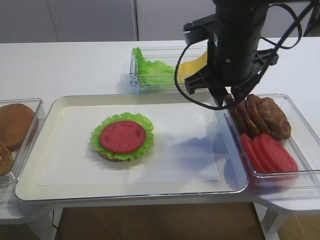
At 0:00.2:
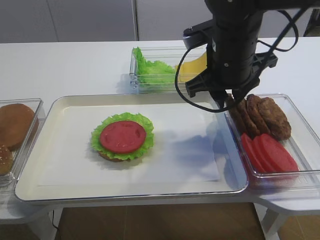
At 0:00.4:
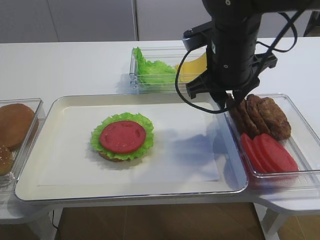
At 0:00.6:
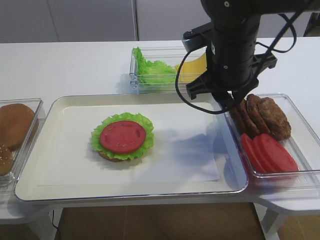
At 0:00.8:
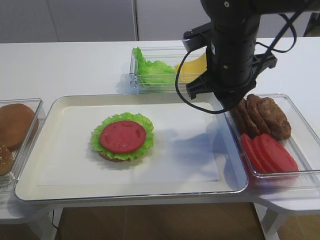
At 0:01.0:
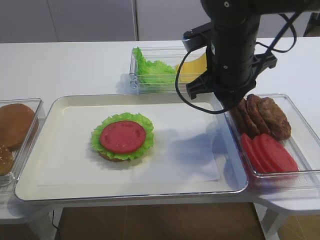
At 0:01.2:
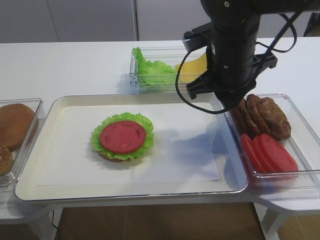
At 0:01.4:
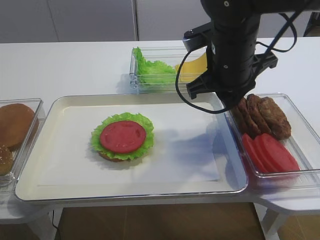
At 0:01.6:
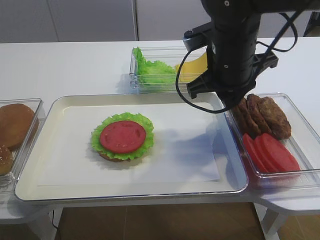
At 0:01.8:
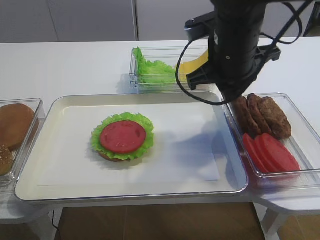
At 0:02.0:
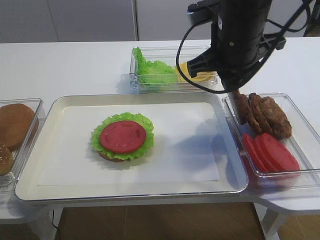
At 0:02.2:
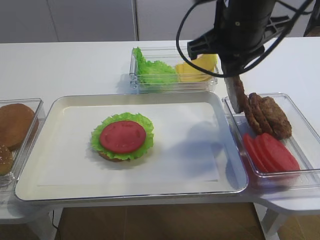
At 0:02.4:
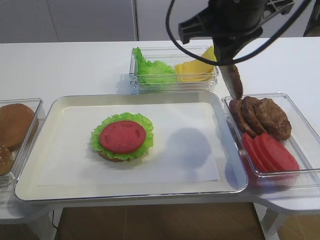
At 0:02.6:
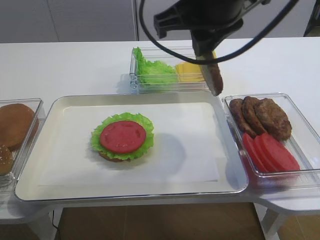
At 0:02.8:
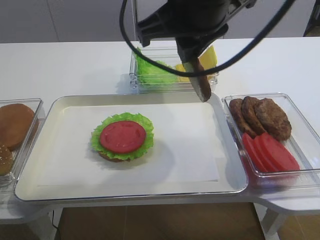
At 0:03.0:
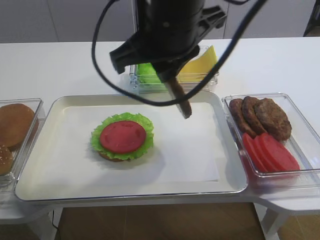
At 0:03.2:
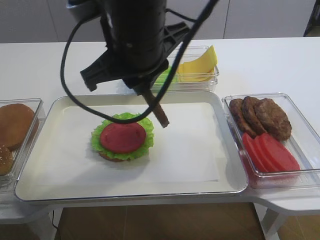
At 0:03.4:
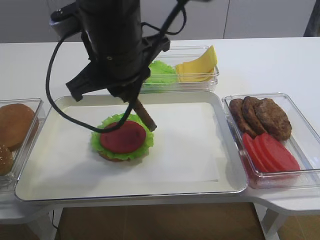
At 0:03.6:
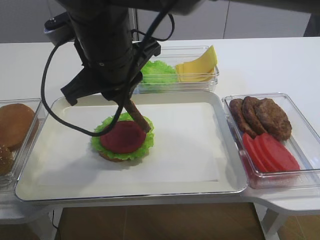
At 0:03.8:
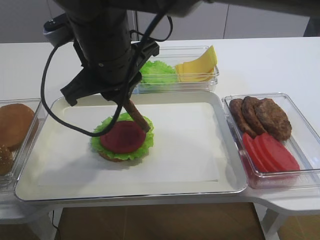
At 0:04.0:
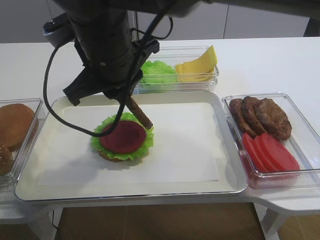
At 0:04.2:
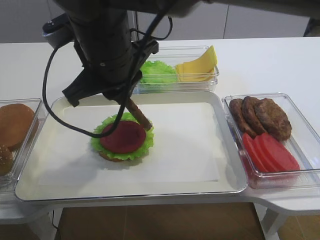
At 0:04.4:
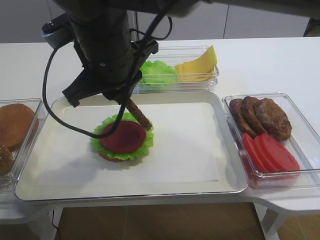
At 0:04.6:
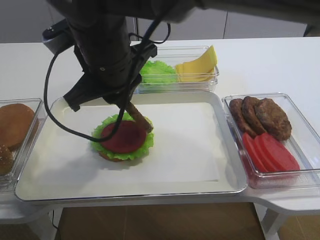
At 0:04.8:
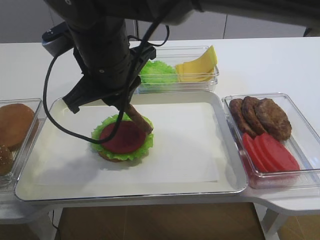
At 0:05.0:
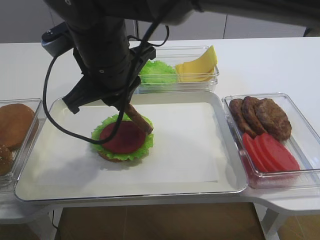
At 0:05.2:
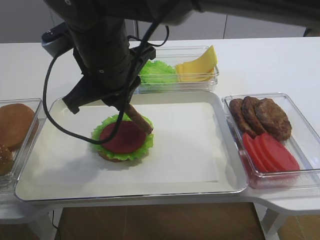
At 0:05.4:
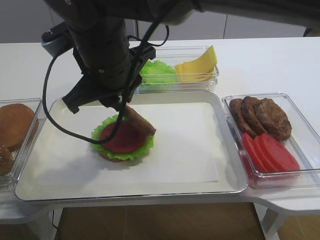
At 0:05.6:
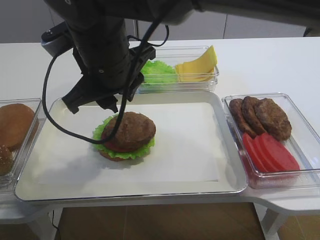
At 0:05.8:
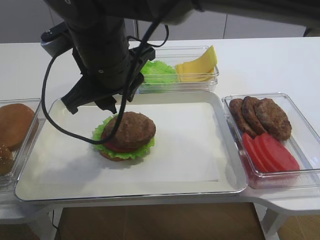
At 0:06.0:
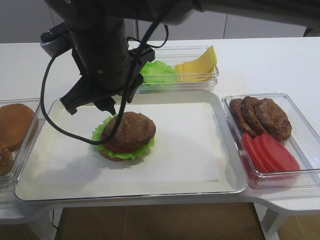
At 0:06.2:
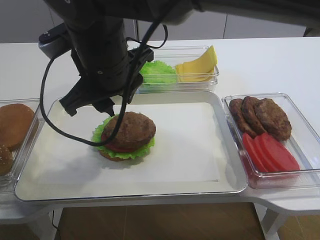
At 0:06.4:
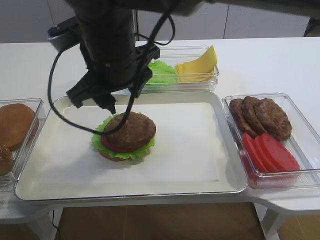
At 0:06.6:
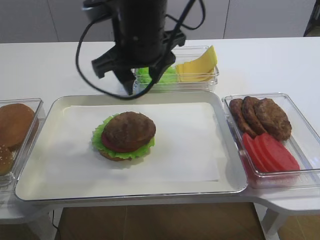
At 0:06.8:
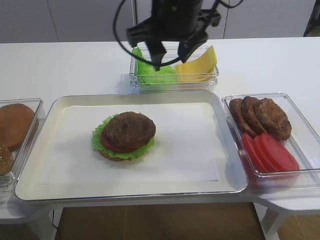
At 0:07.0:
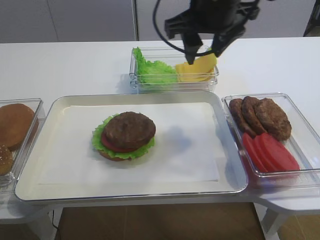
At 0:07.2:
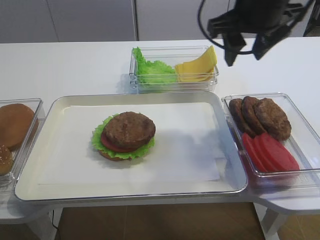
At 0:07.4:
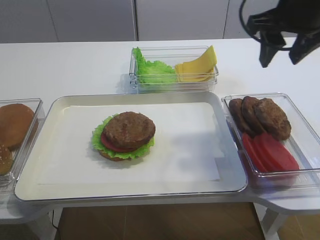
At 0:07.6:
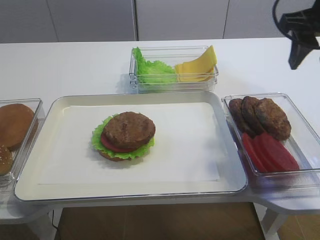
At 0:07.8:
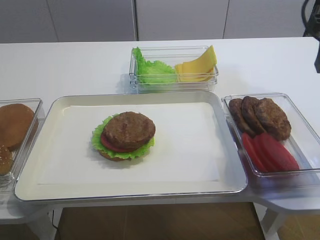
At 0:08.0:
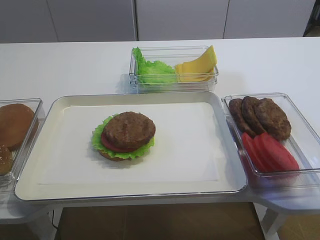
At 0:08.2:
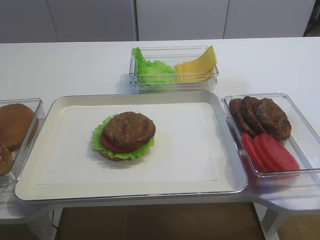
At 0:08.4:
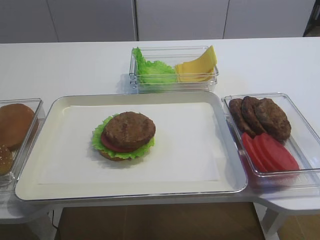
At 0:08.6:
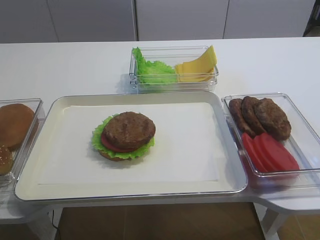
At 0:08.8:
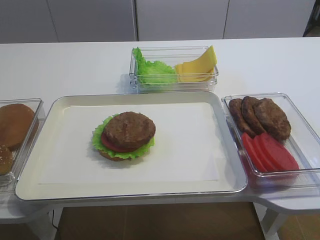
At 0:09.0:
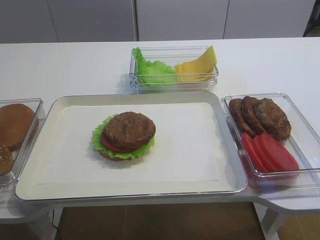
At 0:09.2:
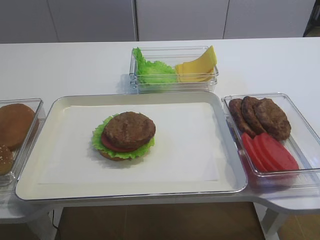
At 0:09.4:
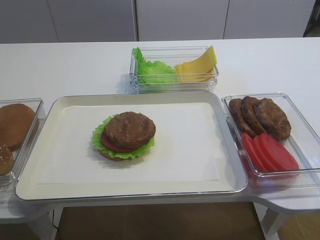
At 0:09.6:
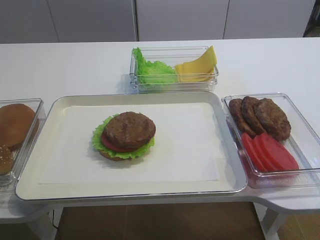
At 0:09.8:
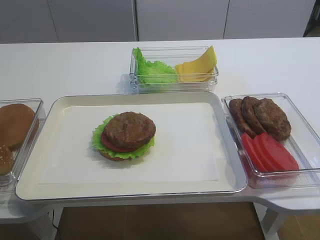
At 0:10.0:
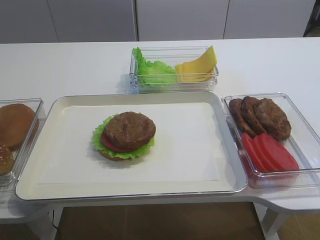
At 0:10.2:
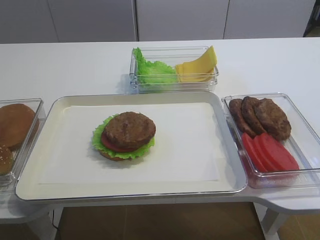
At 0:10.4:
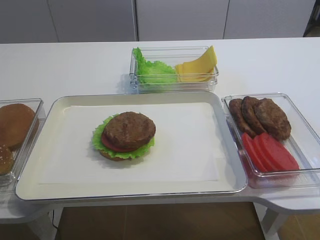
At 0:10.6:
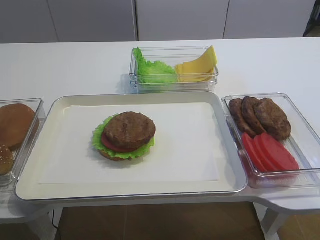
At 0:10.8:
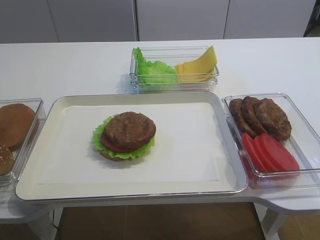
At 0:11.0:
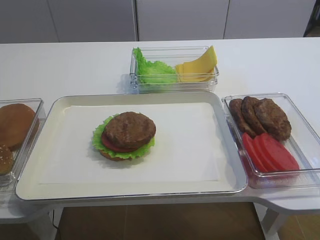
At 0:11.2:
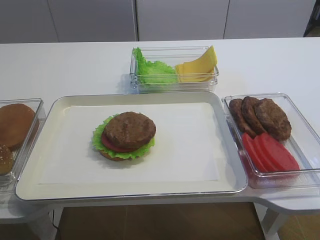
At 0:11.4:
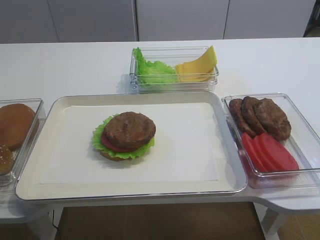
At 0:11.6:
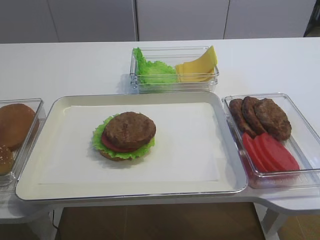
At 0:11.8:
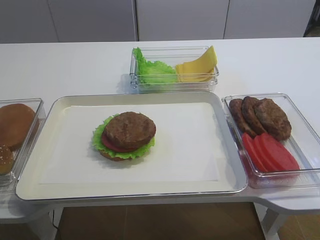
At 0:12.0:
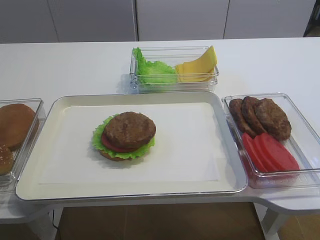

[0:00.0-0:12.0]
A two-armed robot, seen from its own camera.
Step, 0:00.0 to 0:02.0: Pick up the cutlet with the right gripper.
Step, 0:02.2 to 0:05.8: Place the cutlet on the tomato slice with the right gripper.
0:00.0 to 0:01.6: The right gripper closes up.
0:01.6 to 0:03.0: The right gripper travels to the left, upward and backward by some 15 cm.
0:03.0 to 0:04.4: The right gripper moves to the left, roughly 5 cm.
0:04.4 to 0:06.0: The right gripper opens up.
0:06.0 to 0:07.6: The right gripper shifts approximately 30 cm to the right, and opens.
0:07.6 to 0:09.0: The right gripper goes some 30 cm backward.
0:09.0 to 0:10.4: The right gripper changes place by approximately 5 cm.

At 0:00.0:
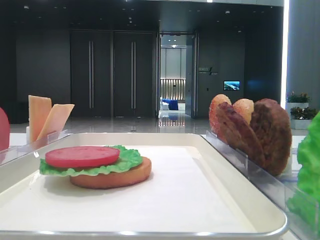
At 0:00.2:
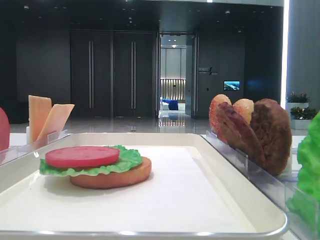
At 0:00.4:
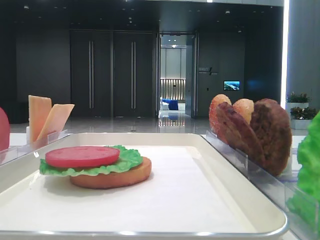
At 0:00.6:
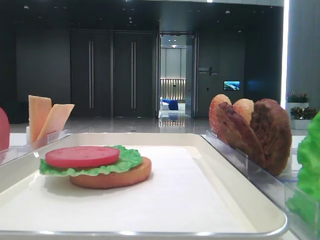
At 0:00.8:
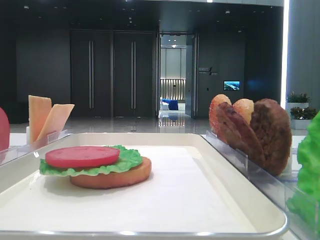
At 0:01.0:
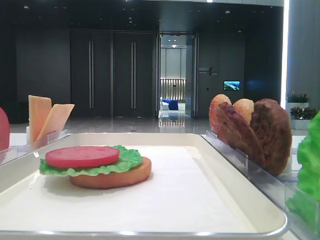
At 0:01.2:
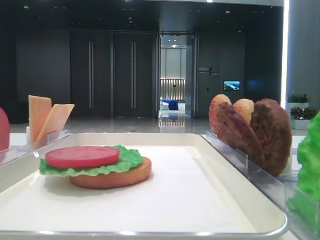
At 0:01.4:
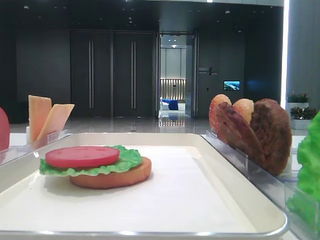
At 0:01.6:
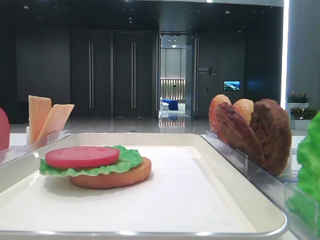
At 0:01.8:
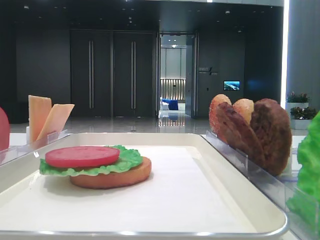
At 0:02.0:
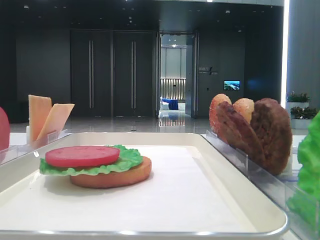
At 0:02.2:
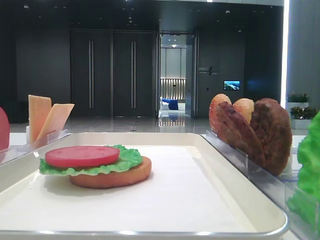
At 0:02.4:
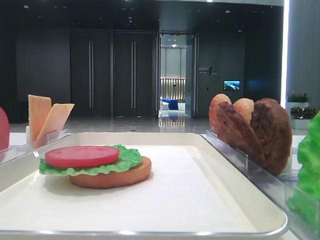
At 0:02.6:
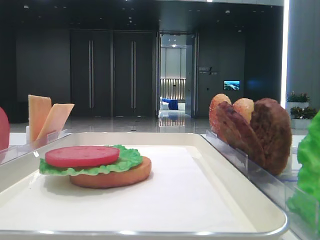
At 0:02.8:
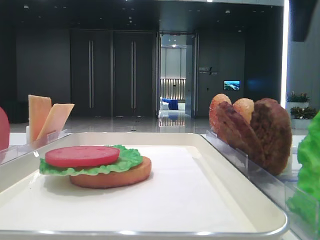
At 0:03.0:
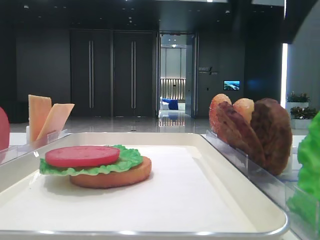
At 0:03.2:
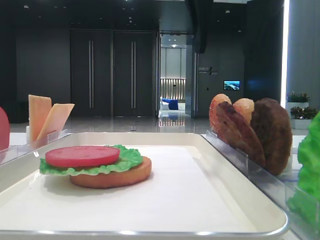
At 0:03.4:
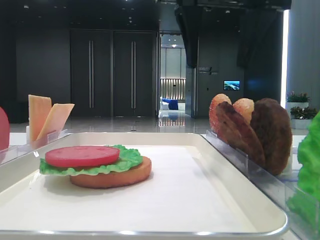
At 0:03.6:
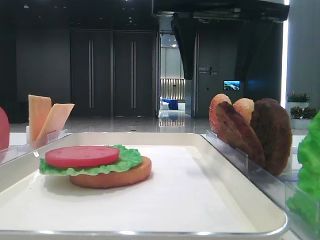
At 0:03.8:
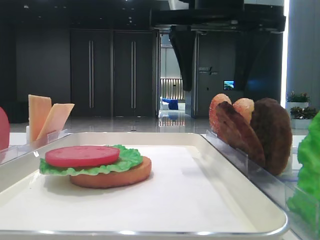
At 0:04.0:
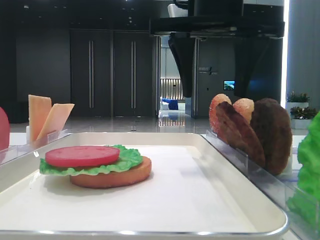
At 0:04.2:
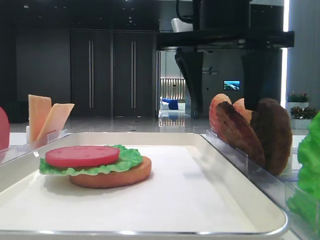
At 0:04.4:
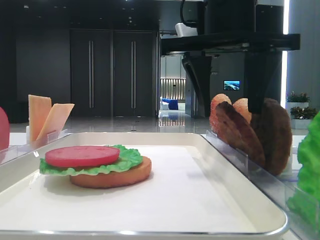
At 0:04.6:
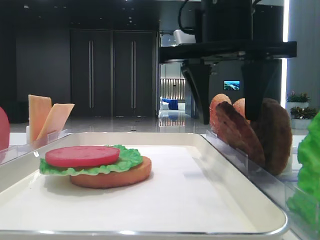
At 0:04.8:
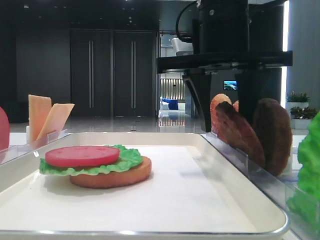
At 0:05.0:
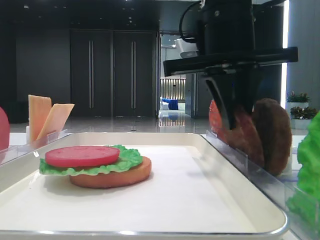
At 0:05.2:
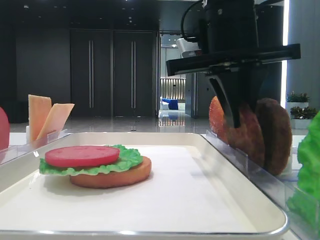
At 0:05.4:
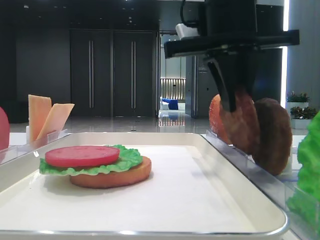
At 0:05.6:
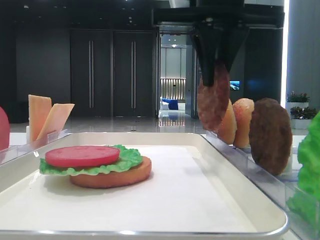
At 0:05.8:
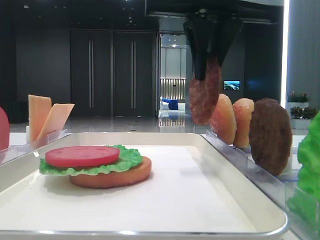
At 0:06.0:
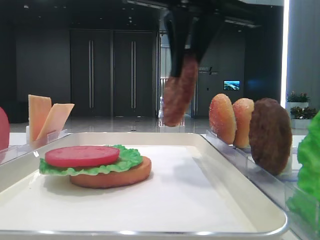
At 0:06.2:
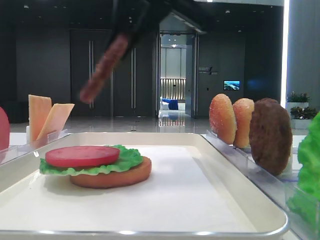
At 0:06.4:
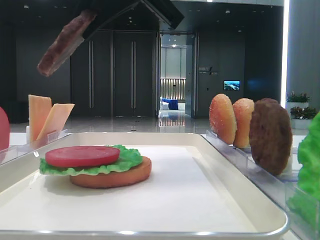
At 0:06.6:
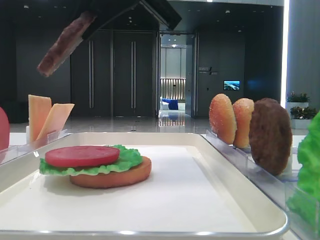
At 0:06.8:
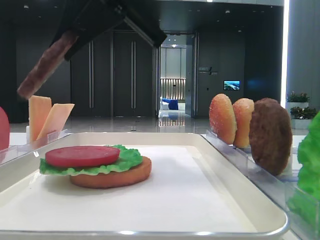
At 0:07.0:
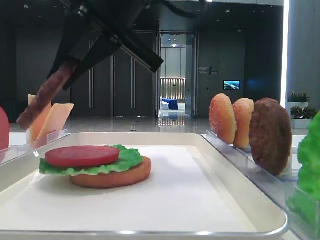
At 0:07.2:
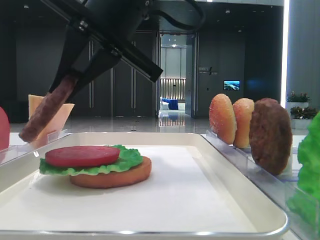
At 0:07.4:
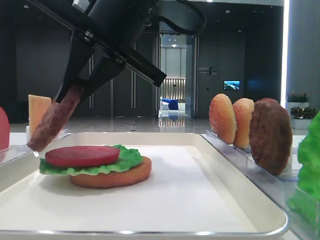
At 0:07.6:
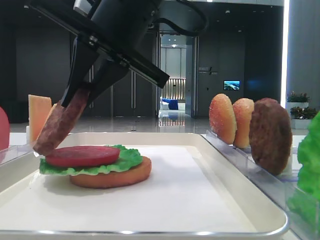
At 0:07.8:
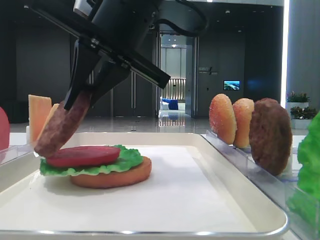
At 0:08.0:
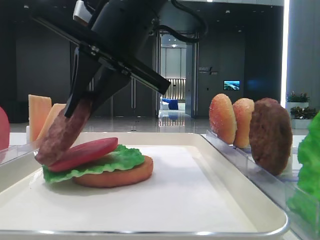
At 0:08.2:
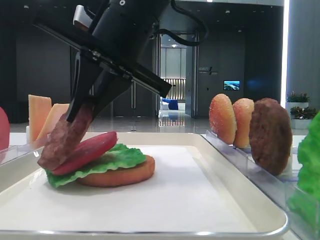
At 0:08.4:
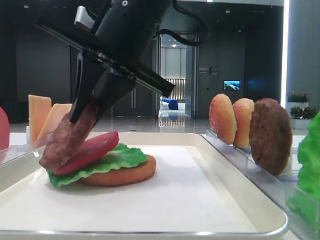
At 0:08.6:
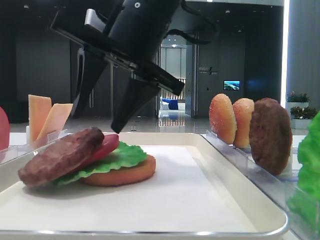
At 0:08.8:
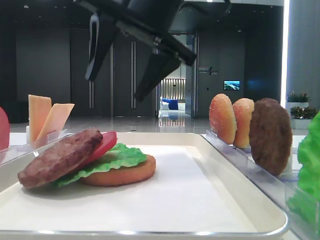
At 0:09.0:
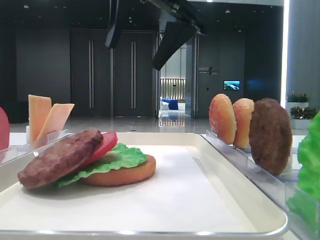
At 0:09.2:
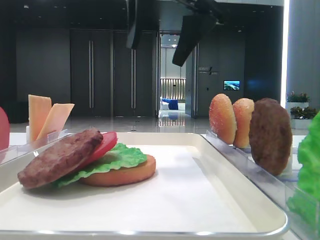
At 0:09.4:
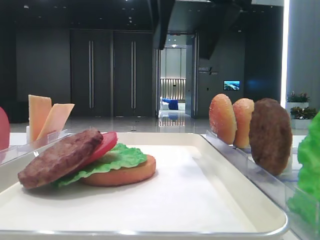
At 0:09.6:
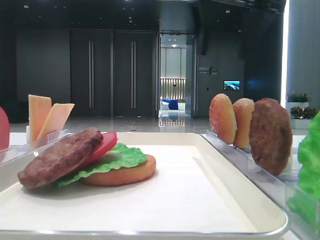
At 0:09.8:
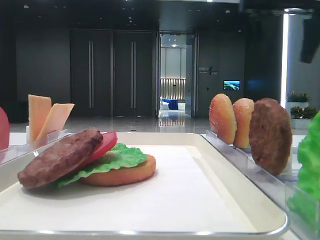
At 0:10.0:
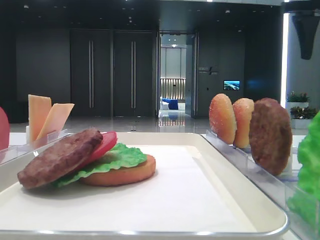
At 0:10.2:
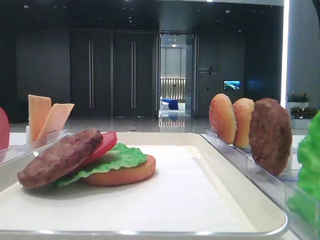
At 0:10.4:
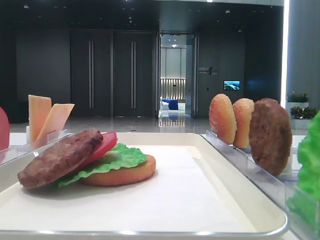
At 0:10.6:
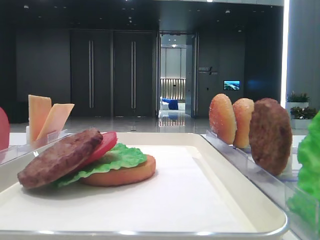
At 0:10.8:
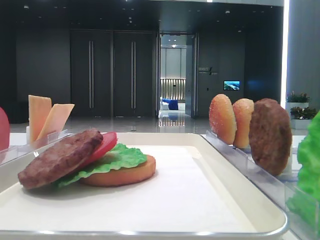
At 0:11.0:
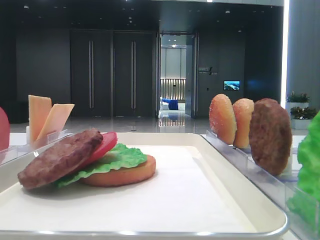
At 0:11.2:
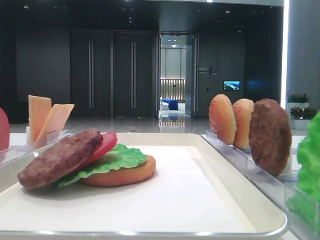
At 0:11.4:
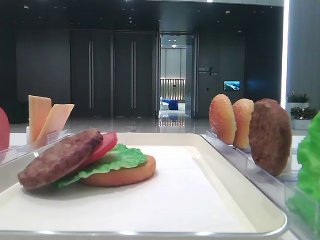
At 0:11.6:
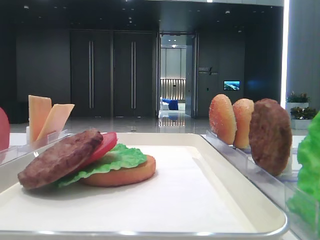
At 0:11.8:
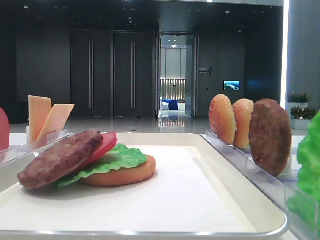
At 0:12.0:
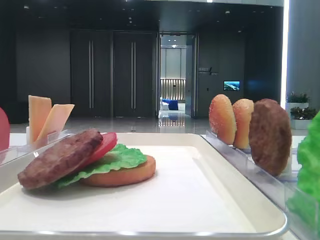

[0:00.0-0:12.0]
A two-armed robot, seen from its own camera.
Step, 0:00.0 to 0:05.2: Grab the patty with the right hand.
Step, 0:05.4 to 0:08.4: Place the patty on the tomato slice with the right hand.
0:01.6 to 0:03.0: The right gripper shifts roughly 35 cm forward and to the left.
0:03.0 to 0:04.4: The left gripper closes its fingers. Meanwhile the right gripper is displaced downward and to the left by approximately 10 cm.
0:04.4 to 0:06.0: The right gripper ends up approximately 5 cm from where it was, and closes.
0:06.0 to 0:07.6: The right gripper travels to the left and downward by some 10 cm.
0:07.6 to 0:09.0: The right gripper goes roughly 10 cm upward and to the right, and opens its fingers.
0:09.0 to 0:10.4: The right gripper heads to the right, covering roughly 25 cm.
